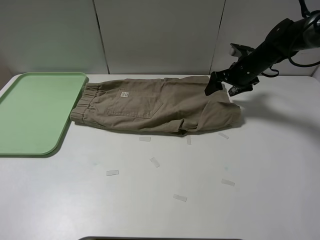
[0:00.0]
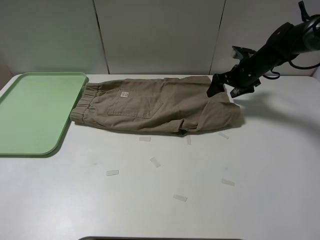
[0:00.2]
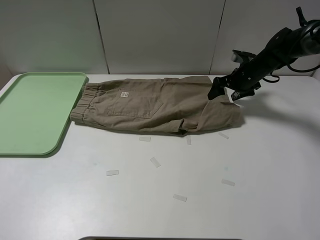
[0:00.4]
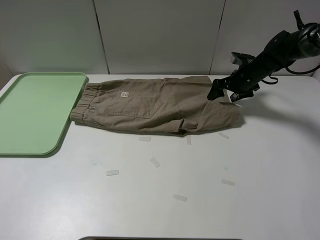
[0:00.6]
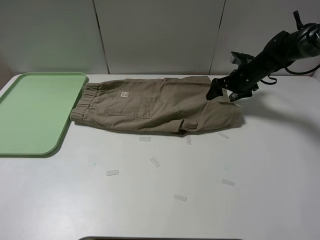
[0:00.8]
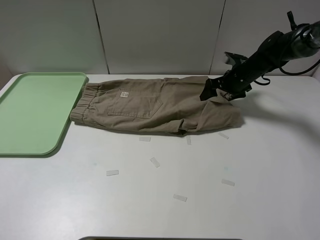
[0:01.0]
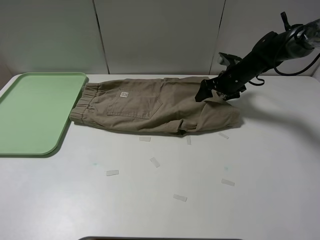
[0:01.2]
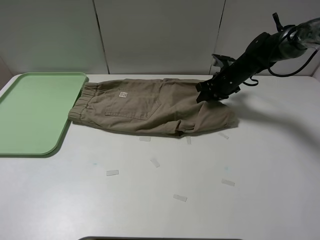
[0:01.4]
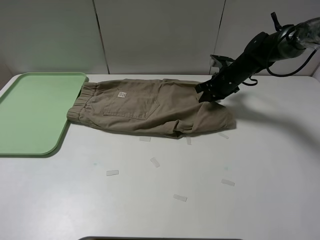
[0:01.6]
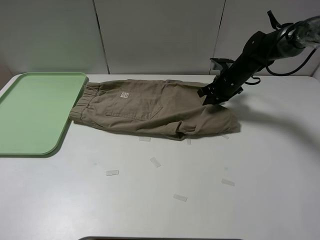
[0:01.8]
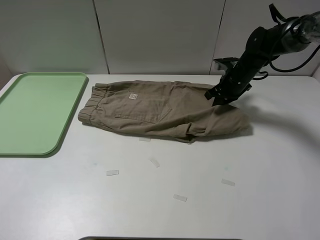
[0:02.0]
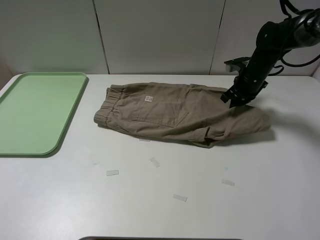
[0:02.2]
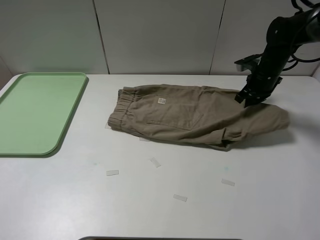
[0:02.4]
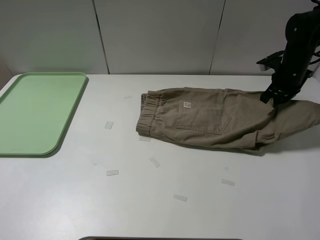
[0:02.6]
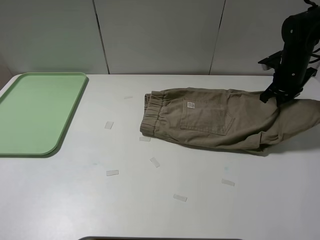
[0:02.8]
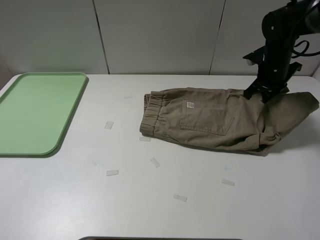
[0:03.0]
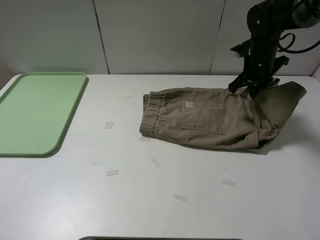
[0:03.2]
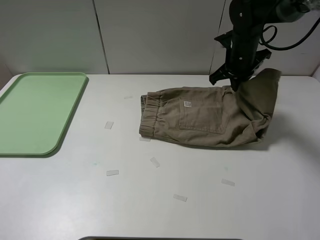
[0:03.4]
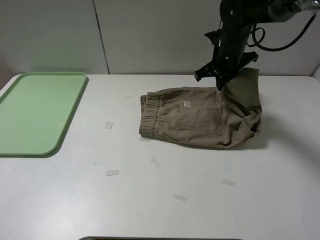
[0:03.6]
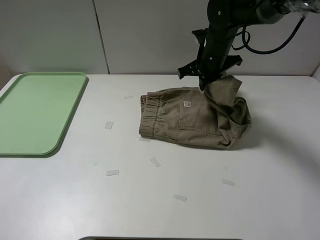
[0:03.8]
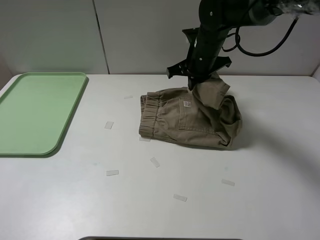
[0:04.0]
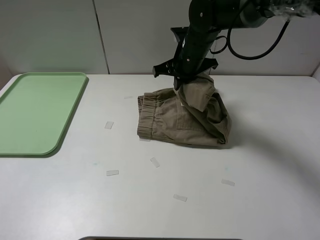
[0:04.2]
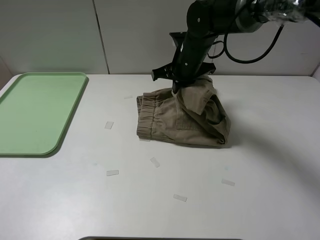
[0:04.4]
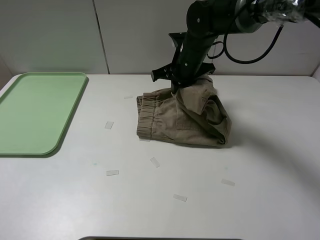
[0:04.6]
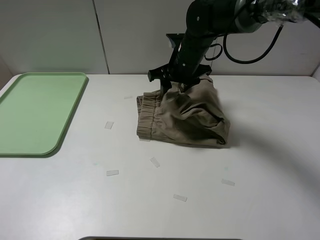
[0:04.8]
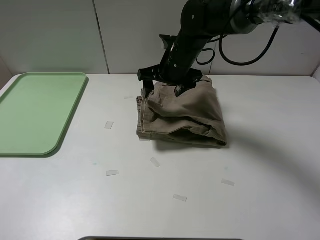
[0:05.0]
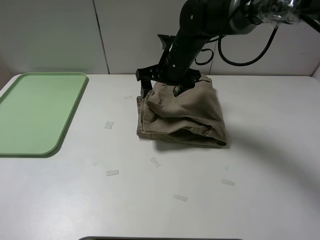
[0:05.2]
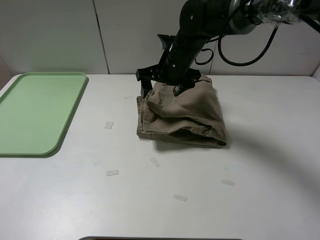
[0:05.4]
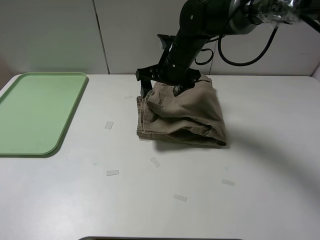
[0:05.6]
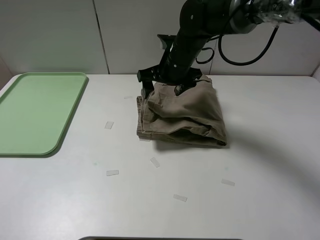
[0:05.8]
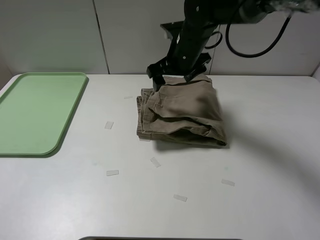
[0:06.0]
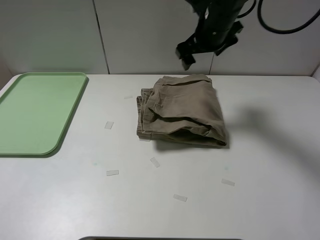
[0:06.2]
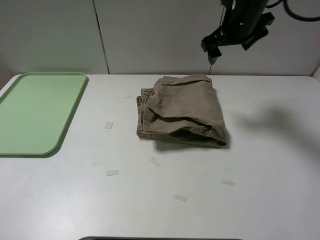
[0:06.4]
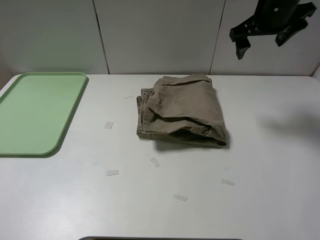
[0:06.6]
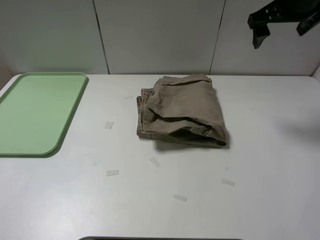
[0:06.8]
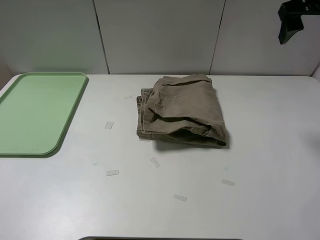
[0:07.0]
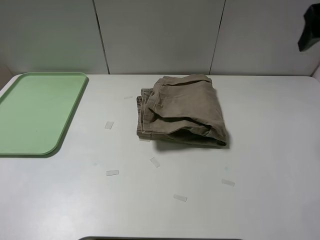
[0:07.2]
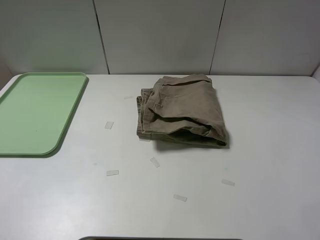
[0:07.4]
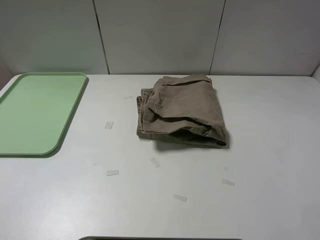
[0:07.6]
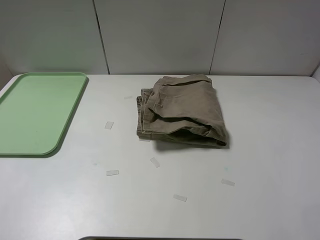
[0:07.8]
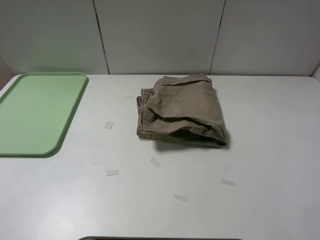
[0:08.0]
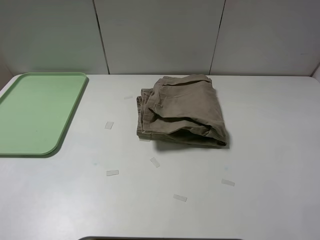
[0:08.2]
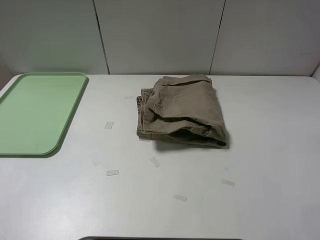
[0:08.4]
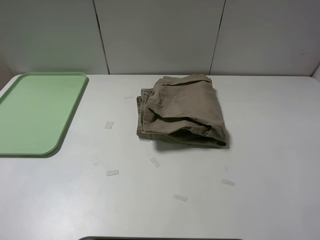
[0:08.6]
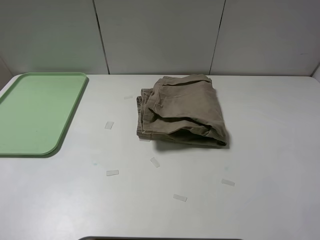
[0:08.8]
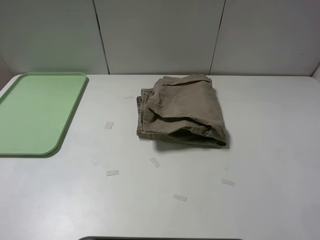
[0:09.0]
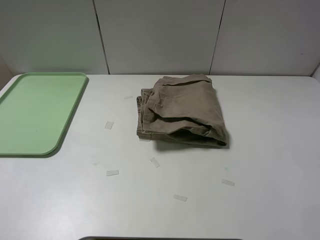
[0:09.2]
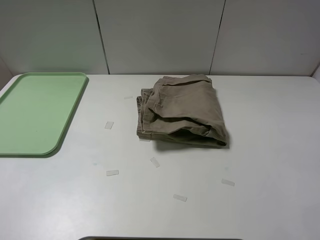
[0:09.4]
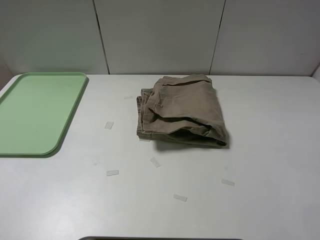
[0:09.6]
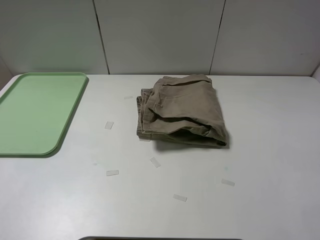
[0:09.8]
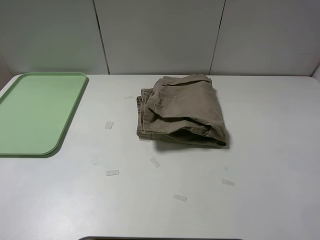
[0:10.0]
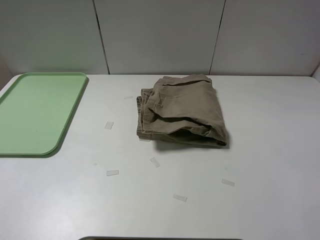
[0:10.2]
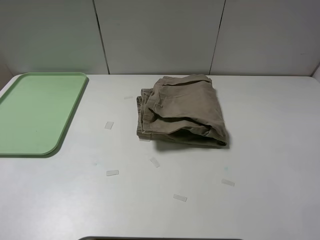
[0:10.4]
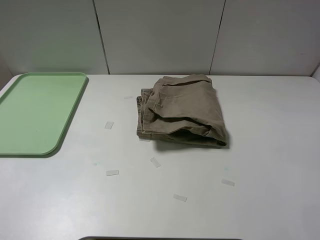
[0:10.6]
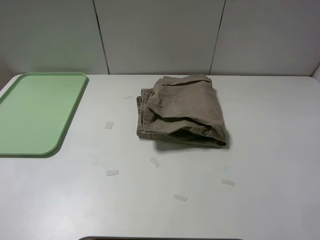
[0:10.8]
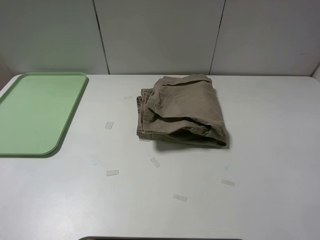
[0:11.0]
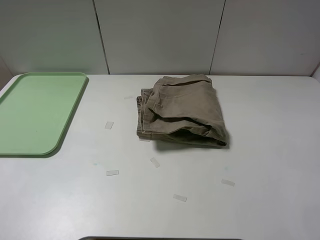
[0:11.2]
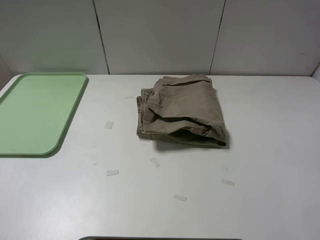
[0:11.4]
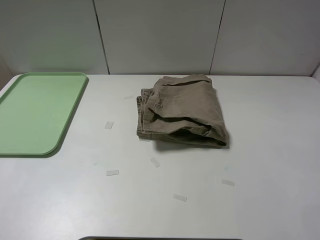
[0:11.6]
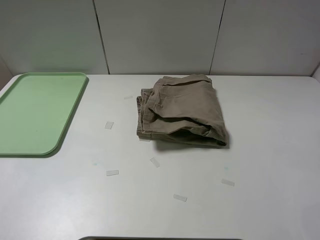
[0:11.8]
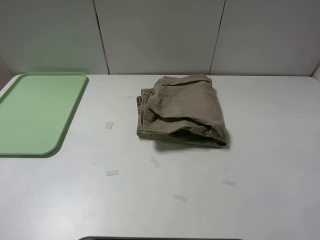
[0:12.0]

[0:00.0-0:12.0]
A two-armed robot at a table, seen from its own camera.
Task of the whole recording: fold the khaki jeans in half with two grippers, then fold them in half again, and use the left claw to place the folded fold khaki jeans on the tray.
Step, 0:01.8 to 0:05.4: Fold the khaki trousers from right to left with the right gripper.
0:00.0 to 0:01.6: The right gripper moves some 5 cm, and closes its fingers.
0:01.6 to 0:03.0: The right gripper is displaced upward and to the right by about 10 cm.
0:03.0 to 0:04.4: The right gripper is displaced to the left by about 20 cm.
0:04.4 to 0:06.0: The right gripper opens its fingers.
0:06.0 to 0:07.6: The right gripper goes roughly 40 cm backward, to the right and upward.

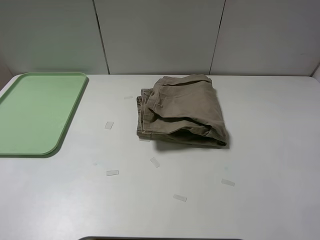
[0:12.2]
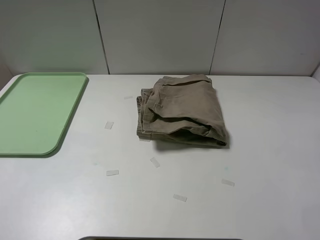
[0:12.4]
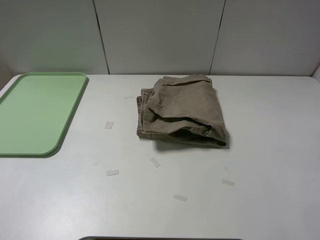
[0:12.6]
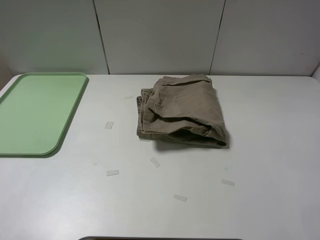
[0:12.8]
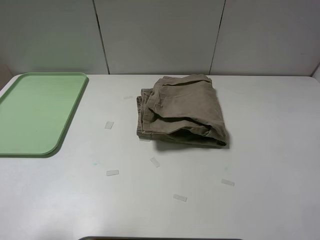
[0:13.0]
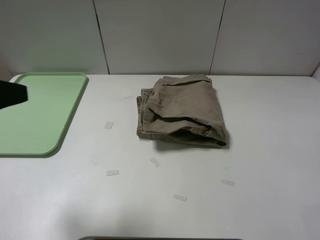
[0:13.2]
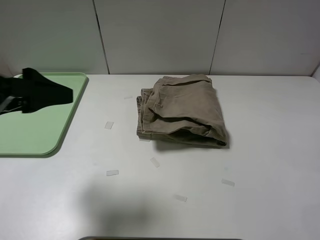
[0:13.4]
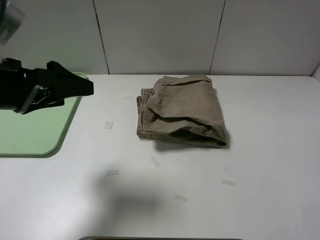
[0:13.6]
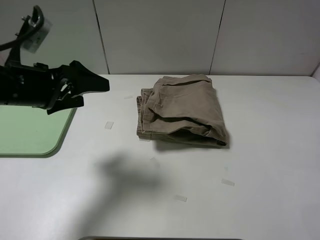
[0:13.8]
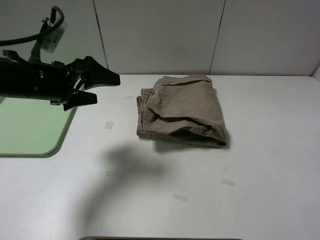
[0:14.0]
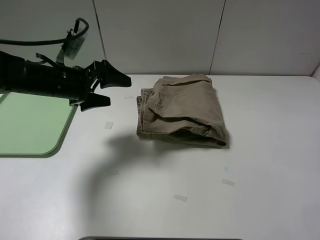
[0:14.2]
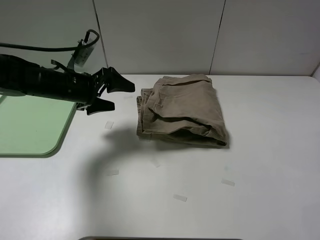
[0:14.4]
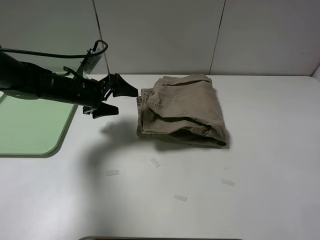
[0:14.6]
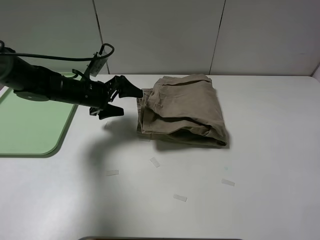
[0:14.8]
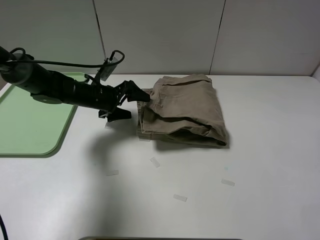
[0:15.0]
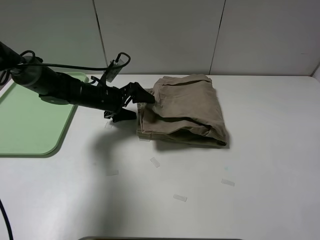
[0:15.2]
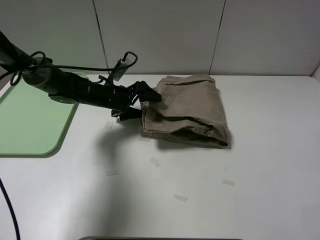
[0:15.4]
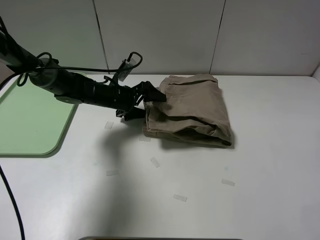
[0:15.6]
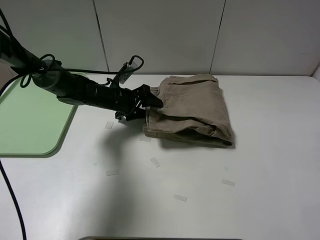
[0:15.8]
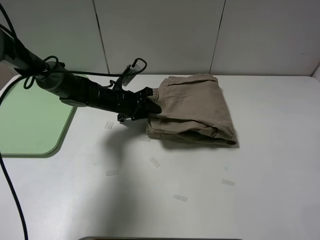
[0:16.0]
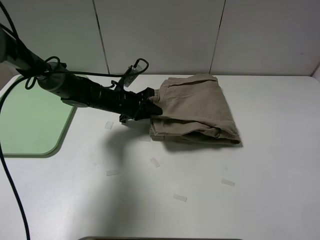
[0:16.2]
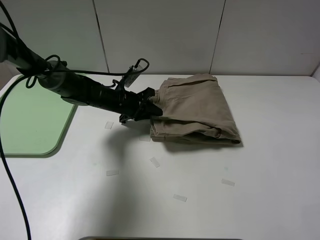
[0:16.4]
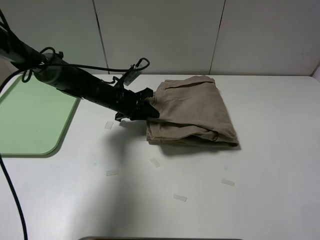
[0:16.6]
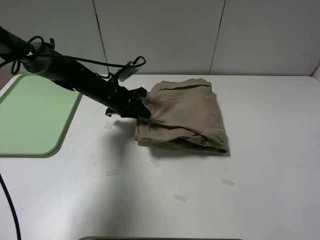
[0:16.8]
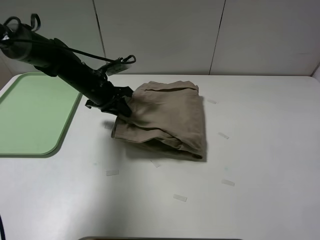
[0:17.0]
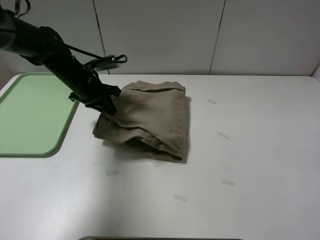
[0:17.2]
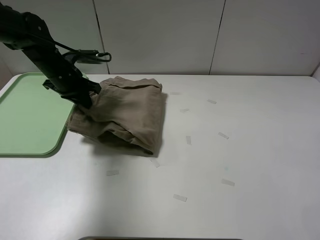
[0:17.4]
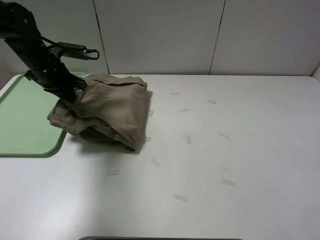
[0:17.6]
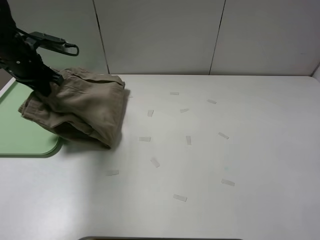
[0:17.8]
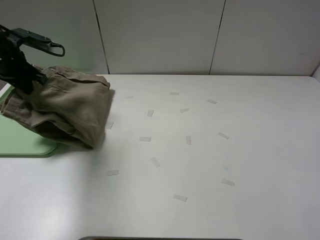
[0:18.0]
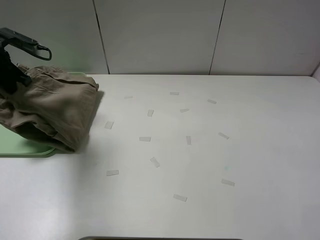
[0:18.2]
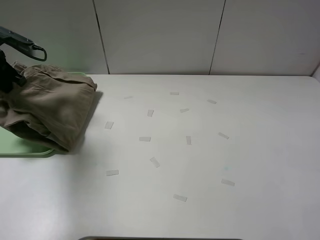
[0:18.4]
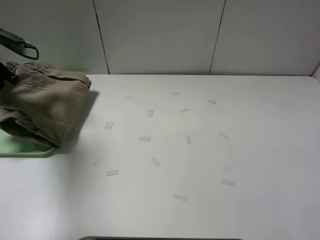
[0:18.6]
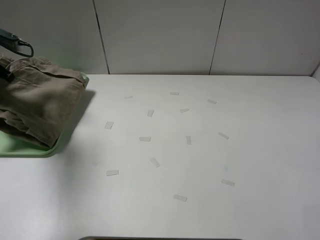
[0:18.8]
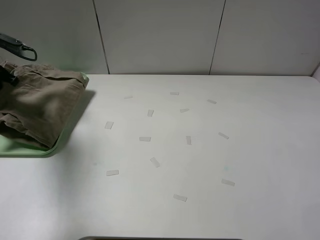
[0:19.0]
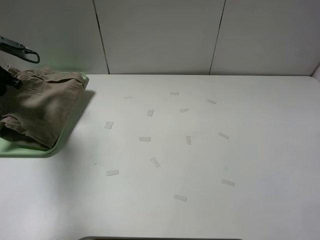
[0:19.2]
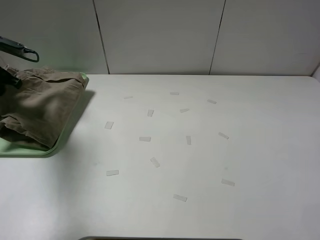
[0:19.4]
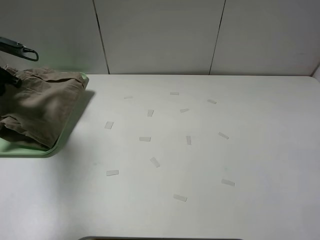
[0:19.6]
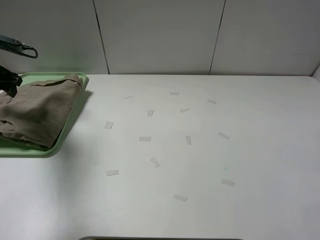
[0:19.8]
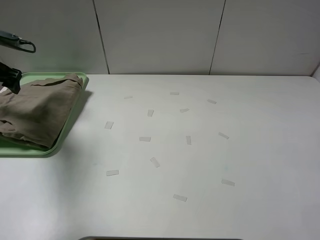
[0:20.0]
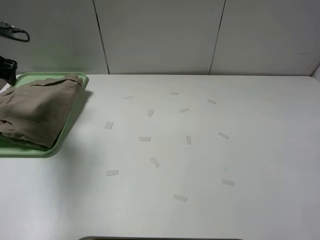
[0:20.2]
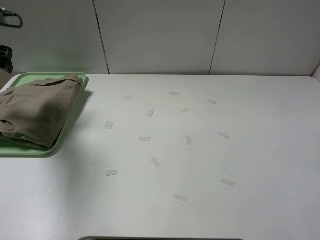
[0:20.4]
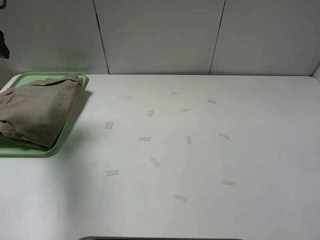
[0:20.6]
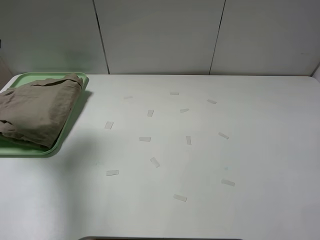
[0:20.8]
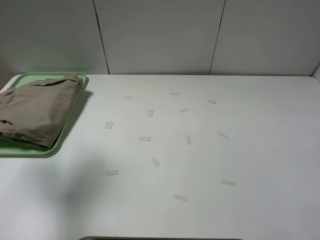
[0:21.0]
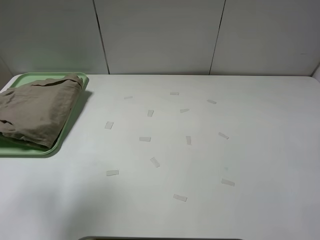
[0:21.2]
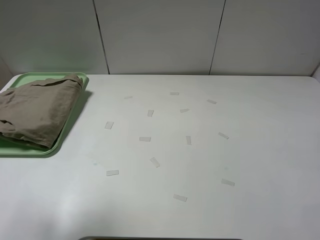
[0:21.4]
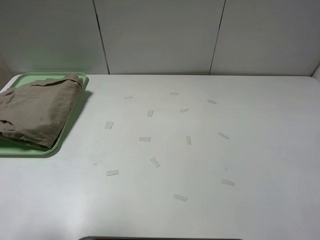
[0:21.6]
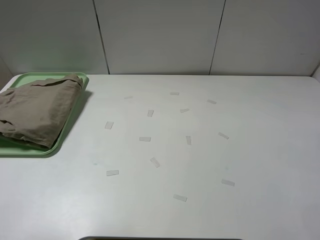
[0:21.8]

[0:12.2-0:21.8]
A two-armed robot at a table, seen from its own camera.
Task of the whole recording: fold the khaki jeans in half with two grippers, then fold them in half again, and use the left claw to place the folded fold khaki jeans on the tray.
Step, 0:12.2 to 0:16.0: Grasp the khaki trousers with the left gripper.
Step, 0:16.2 to 0:19.8: Place the folded khaki trousers on the green tray with the left gripper.
0:12.2 to 0:13.8: The left gripper travels forward by approximately 25 cm.
0:13.8 to 0:15.4: The left gripper is displaced downward, forward and to the right by some 25 cm.
0:15.4 to 0:17.0: The left gripper is displaced upward by some 5 cm, and closes its fingers.
0:17.0 to 0:18.6: The left gripper moves to the left and upward, roughly 25 cm.
0:18.6 to 0:20.2: The left gripper opens.
0:20.2 to 0:21.8: The left gripper goes roughly 30 cm backward.
